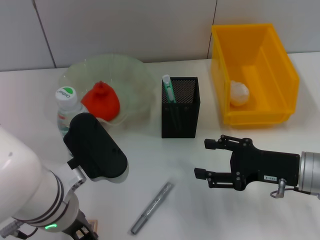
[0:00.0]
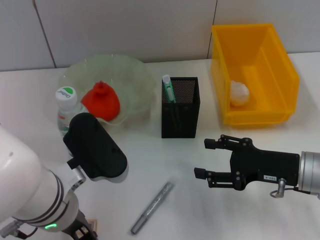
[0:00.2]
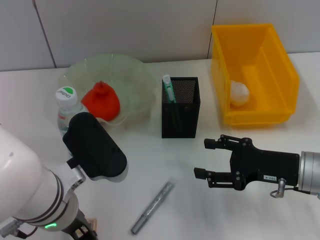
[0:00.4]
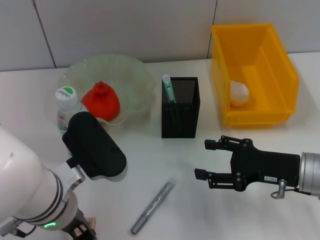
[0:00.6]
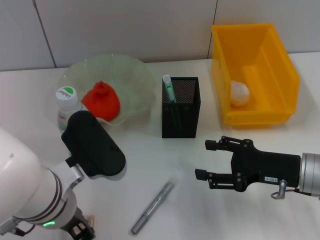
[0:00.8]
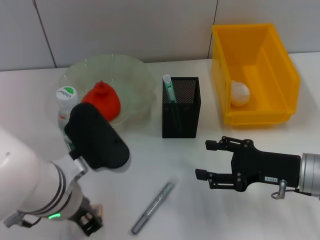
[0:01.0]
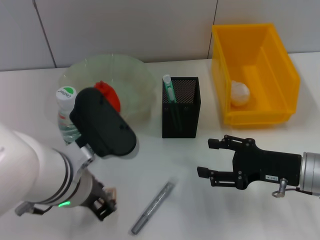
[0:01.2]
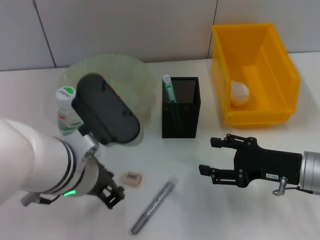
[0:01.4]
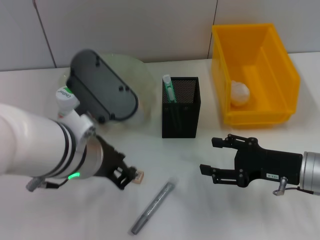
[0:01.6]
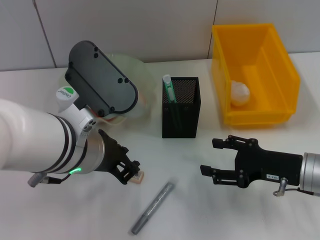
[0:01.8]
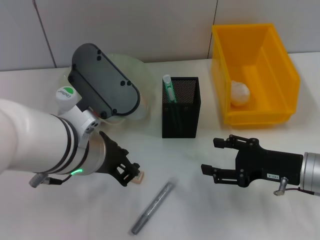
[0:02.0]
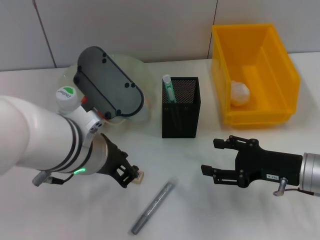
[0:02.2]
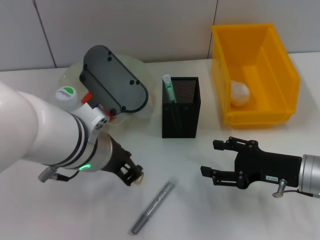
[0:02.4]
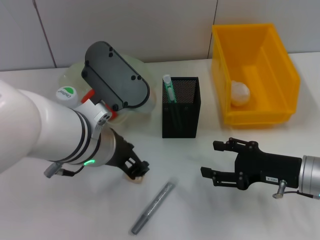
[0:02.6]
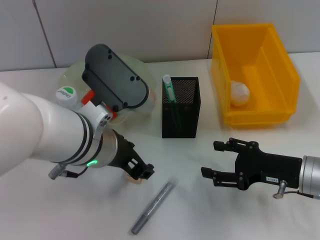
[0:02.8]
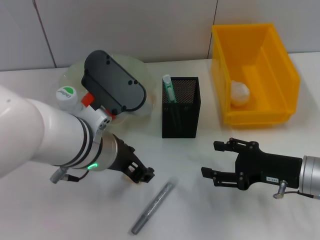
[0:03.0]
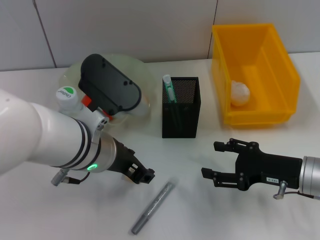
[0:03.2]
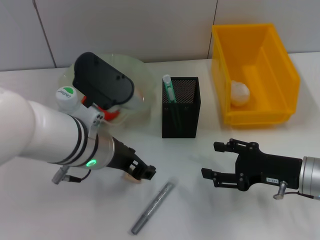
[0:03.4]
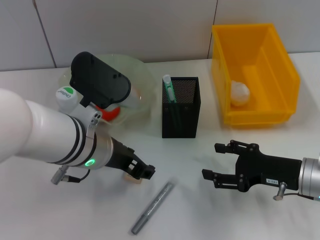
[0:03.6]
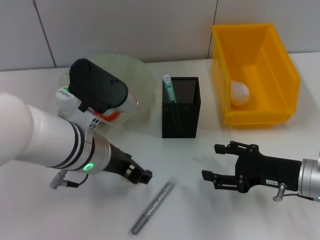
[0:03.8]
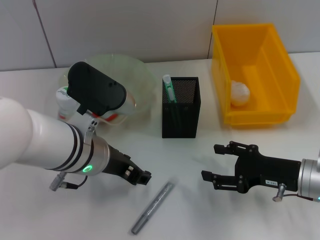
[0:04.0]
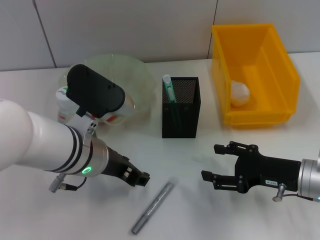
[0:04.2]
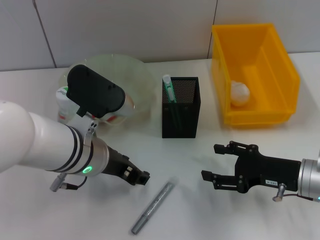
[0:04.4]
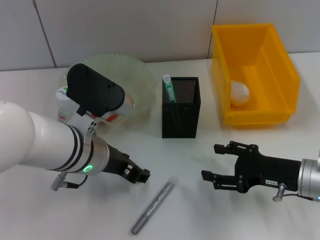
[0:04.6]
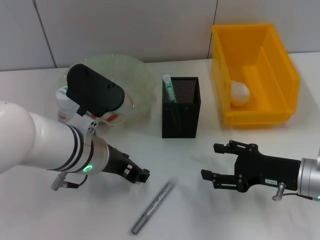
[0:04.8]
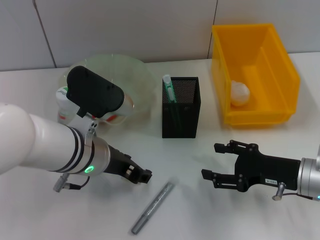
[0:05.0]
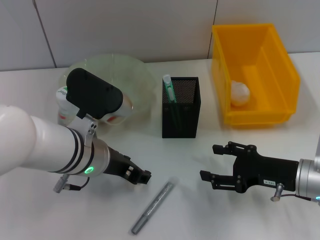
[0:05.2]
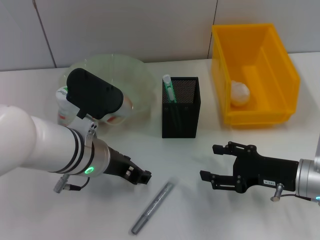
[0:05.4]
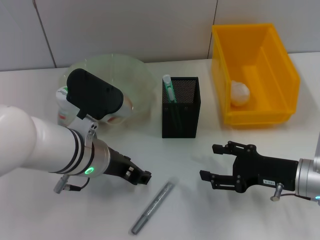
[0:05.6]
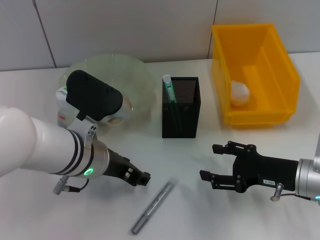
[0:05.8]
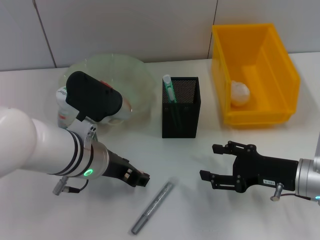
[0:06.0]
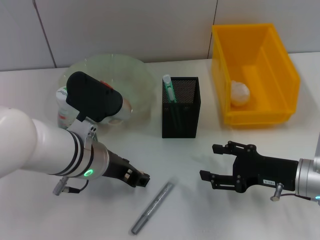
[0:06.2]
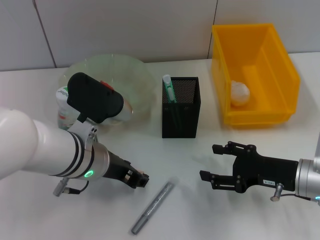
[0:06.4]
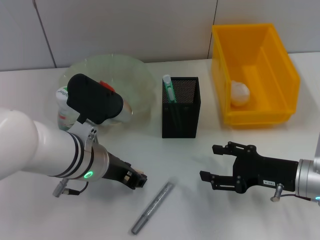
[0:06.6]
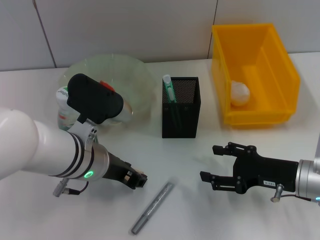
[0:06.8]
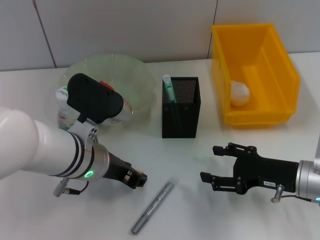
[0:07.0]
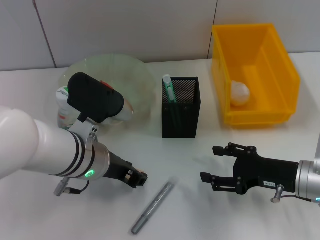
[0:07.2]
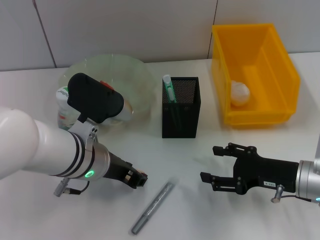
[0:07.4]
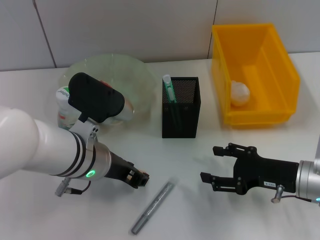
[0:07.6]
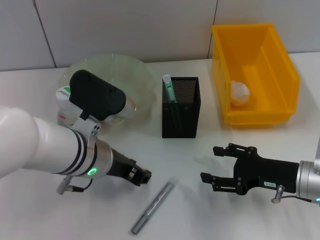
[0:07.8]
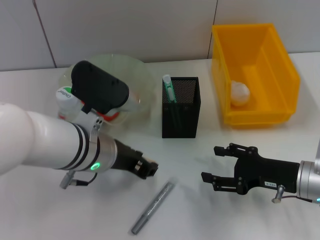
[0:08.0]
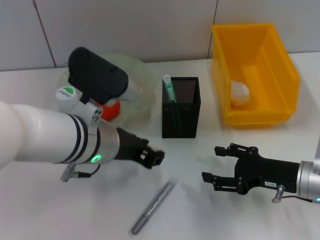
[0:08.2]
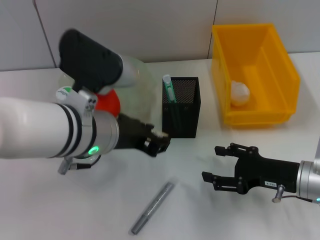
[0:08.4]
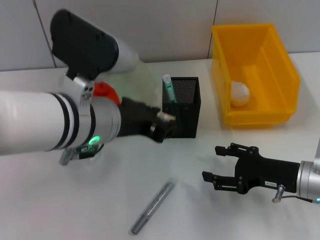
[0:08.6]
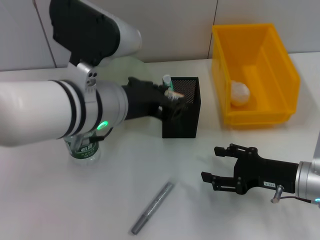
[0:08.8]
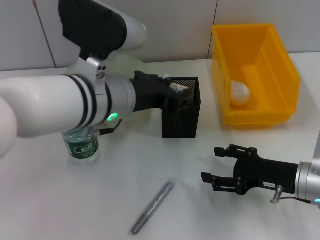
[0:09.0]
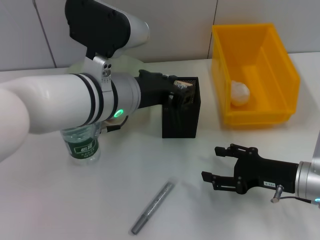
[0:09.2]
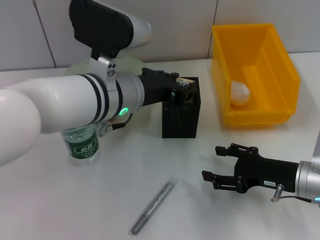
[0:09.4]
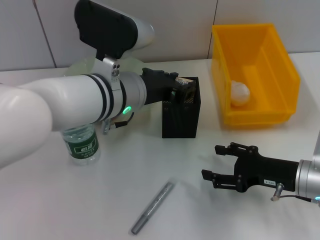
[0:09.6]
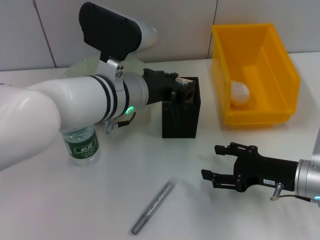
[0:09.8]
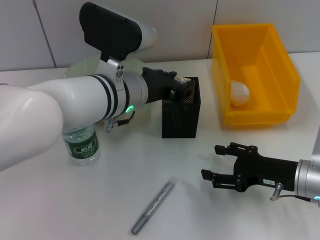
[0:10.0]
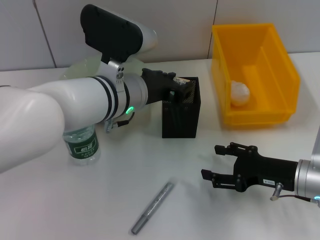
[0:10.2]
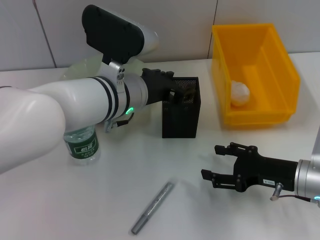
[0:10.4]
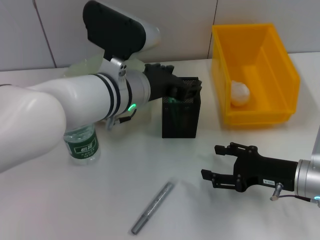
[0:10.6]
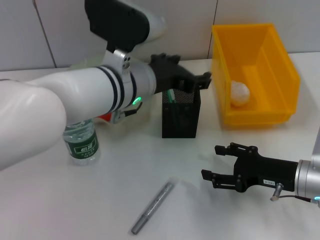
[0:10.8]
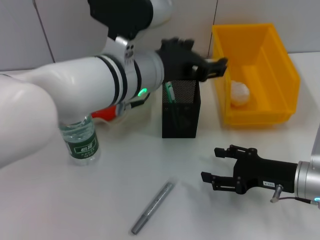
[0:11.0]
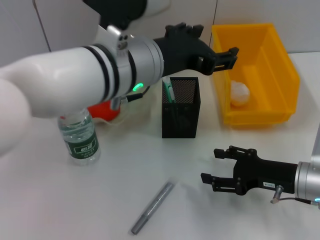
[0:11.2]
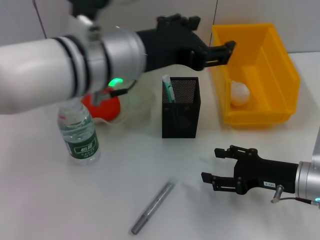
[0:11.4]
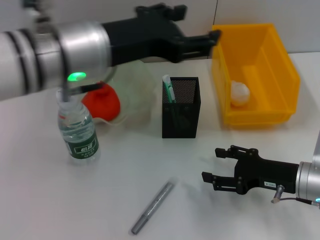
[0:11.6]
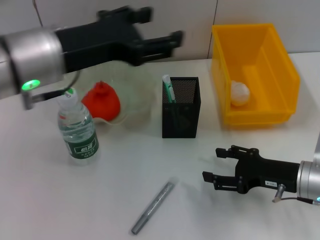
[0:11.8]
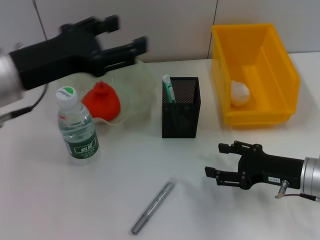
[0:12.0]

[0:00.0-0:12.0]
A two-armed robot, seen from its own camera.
Step, 0:00.0 to 0:10.2: Place the eraser into the pen holder with the left hand.
0:00.0 to 0:01.6: The left gripper heads upward, covering approximately 5 cm.
0:01.6 to 0:03.0: The left gripper opens.
0:03.0 to 0:06.0: The grippers make only small movements.
0:06.0 to 0:07.6: Both grippers stay put.
0:07.6 to 0:09.0: The left gripper goes roughly 10 cm upward.
0:09.0 to 0:10.4: The left gripper ends up some 5 cm from where it was.
0:10.4 to 0:12.0: The left gripper shifts about 15 cm to the left and upward, and opens.

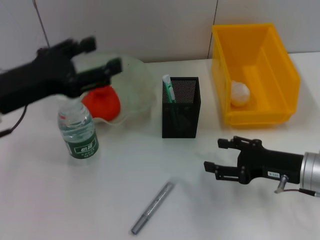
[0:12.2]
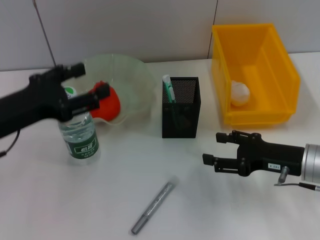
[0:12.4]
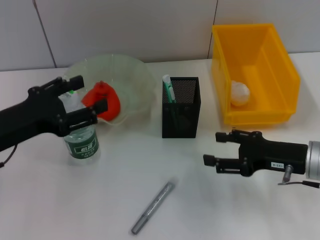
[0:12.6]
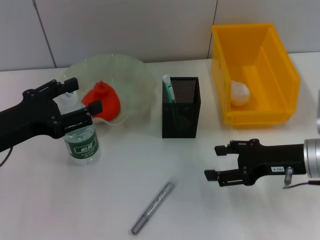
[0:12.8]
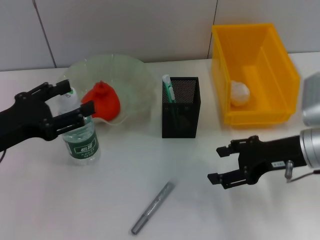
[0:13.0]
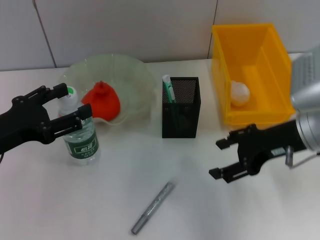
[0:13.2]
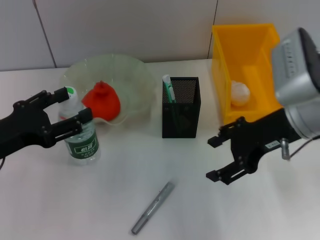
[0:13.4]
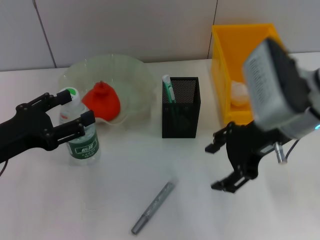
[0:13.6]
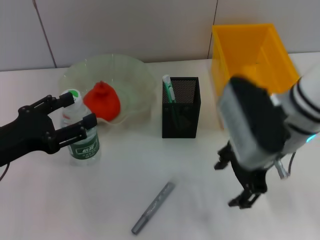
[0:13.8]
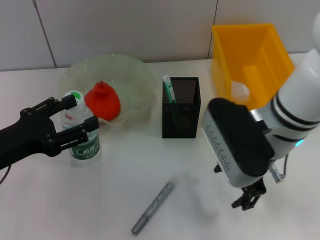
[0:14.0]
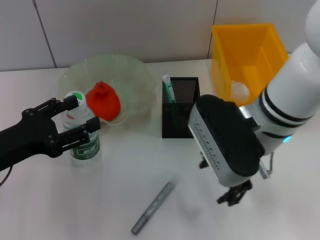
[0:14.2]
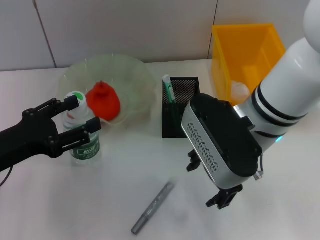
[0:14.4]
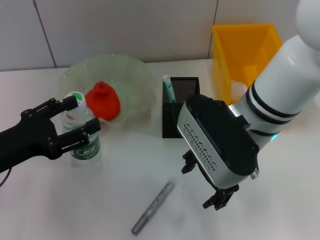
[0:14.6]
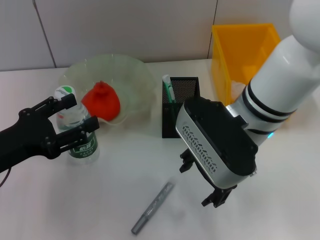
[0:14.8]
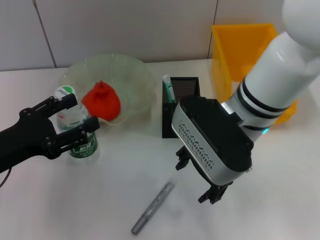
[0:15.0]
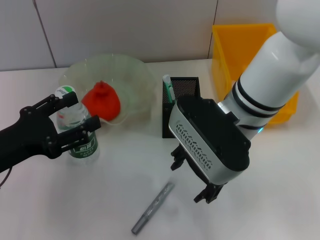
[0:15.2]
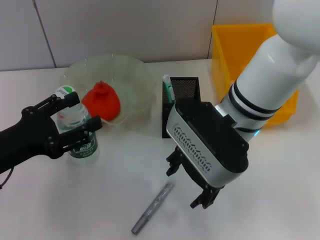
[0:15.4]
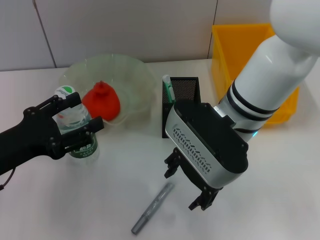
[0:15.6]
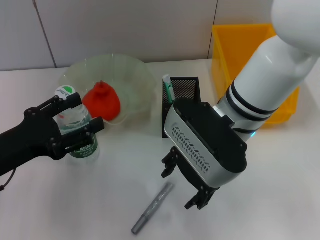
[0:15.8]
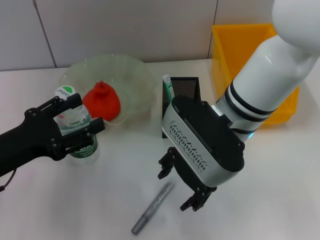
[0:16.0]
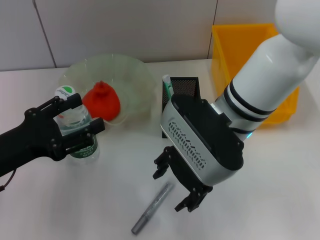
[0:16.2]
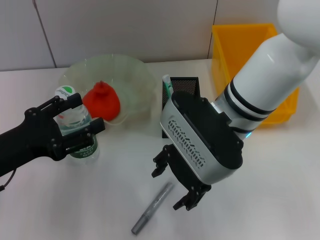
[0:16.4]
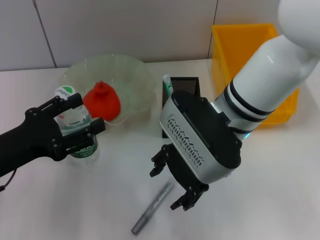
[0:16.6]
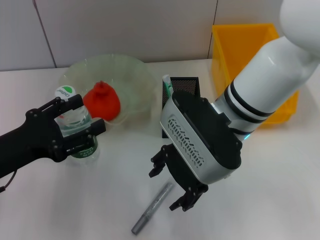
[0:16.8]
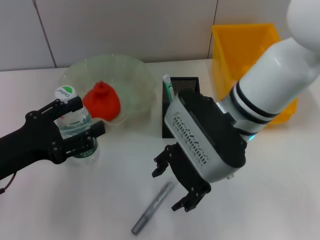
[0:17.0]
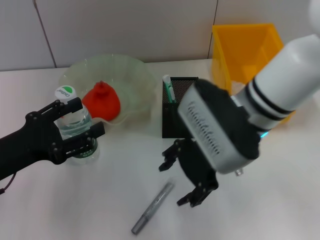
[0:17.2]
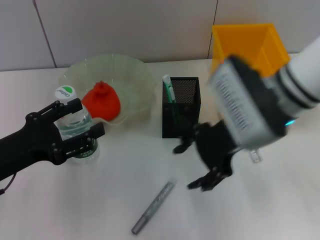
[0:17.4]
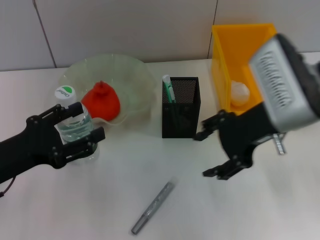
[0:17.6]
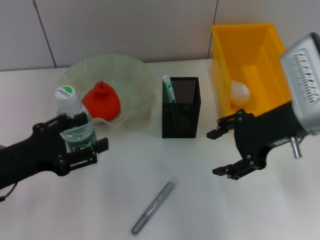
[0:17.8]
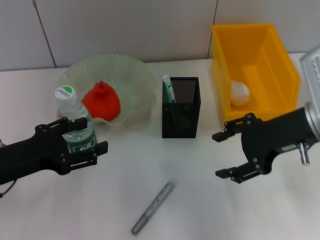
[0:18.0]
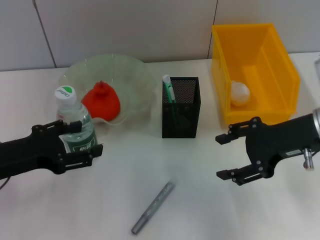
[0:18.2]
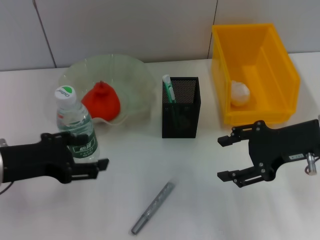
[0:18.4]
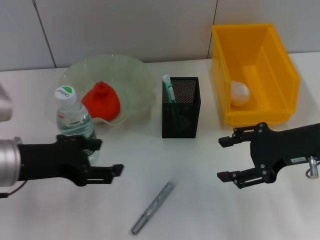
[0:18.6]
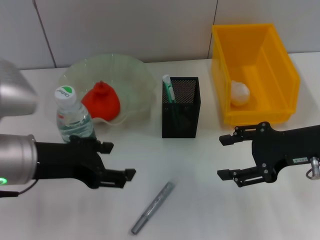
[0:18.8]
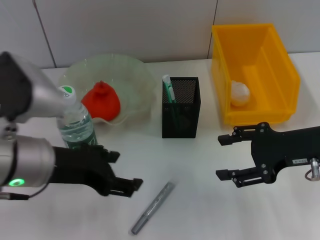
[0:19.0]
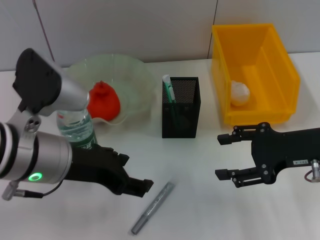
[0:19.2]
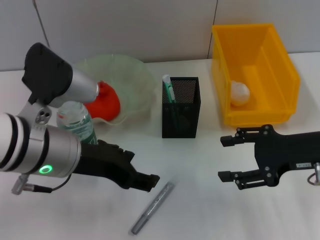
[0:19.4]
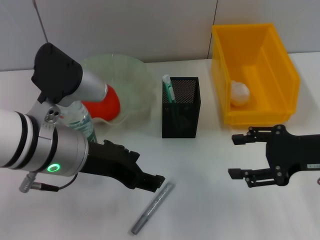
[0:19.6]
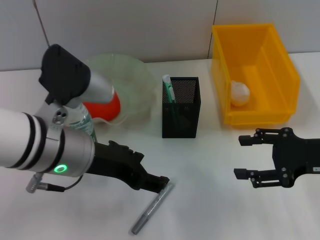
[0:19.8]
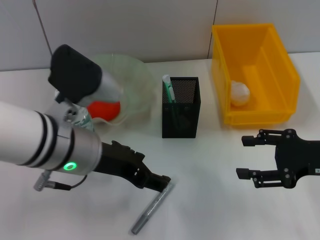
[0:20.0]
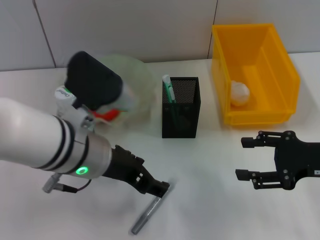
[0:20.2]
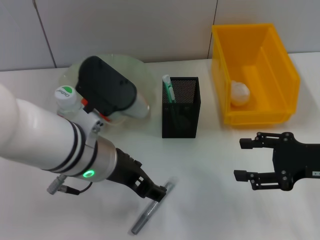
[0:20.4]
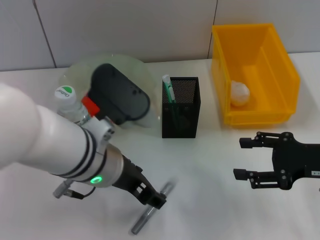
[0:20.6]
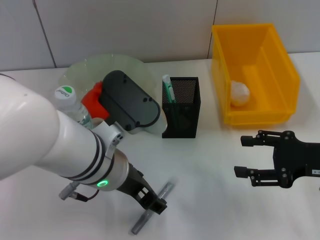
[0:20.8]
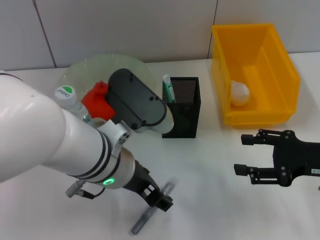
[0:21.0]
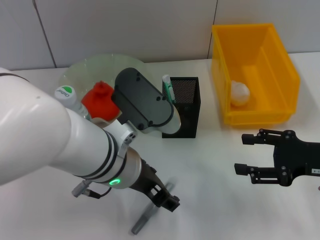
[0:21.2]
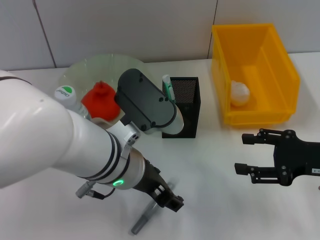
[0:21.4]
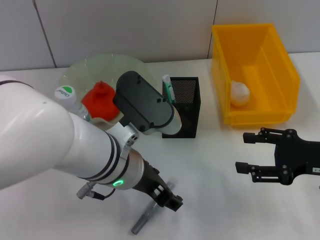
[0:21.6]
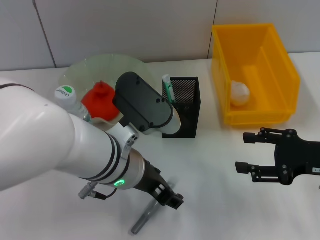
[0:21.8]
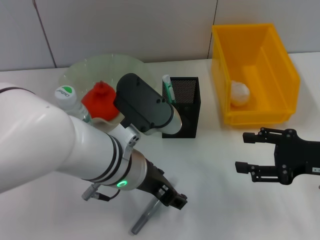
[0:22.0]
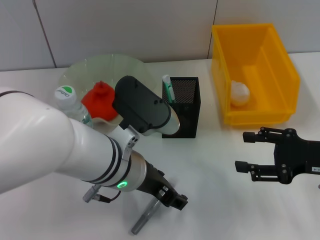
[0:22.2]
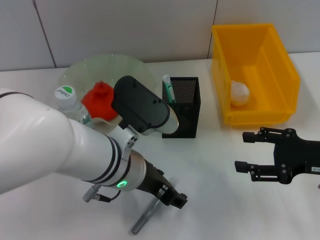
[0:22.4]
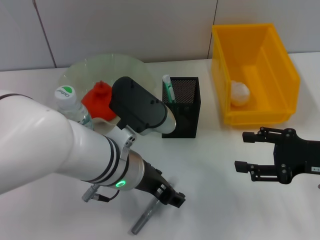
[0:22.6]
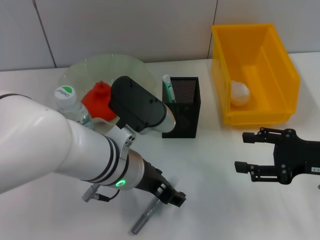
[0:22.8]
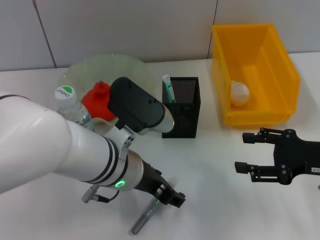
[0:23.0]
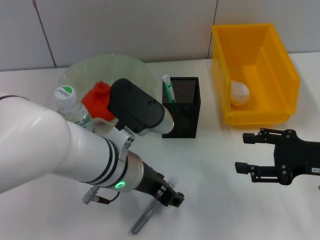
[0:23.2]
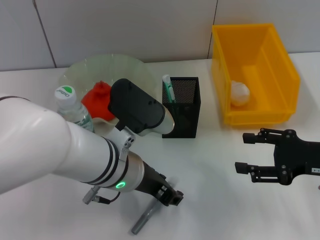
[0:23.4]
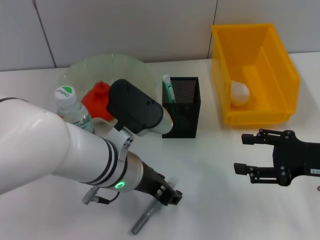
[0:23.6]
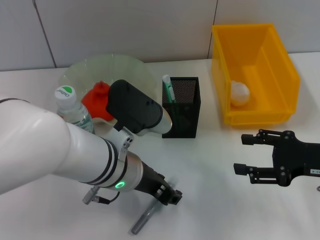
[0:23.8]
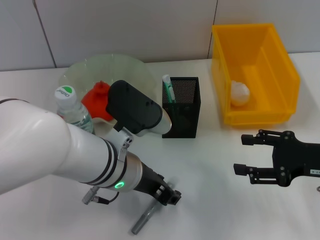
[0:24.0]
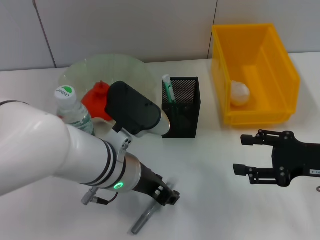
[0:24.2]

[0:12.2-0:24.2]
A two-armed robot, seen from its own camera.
0:12.2 to 0:13.8: The left gripper heads downward, covering about 5 cm, while the right gripper is displaced upward and to the left by about 15 cm.
0:13.8 to 0:15.2: The right gripper shifts approximately 5 cm to the left.
0:15.2 to 0:16.6: The grippers move only a little.
0:16.6 to 0:18.2: The right gripper heads to the right, covering roughly 15 cm.
0:18.2 to 0:19.8: The left gripper is displaced to the right by about 15 cm. Meanwhile the right gripper shifts some 5 cm to the right.
0:19.8 to 0:21.2: The left gripper goes about 5 cm to the right.
0:21.2 to 0:22.6: There are only small adjustments of the grippers.
0:22.6 to 0:24.2: The left gripper closes.
